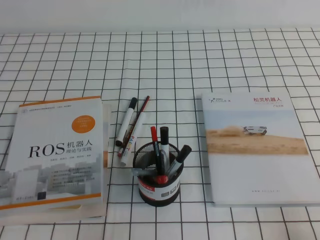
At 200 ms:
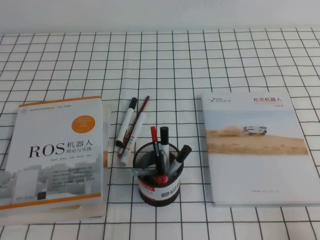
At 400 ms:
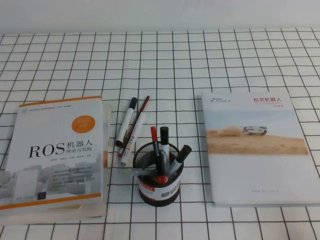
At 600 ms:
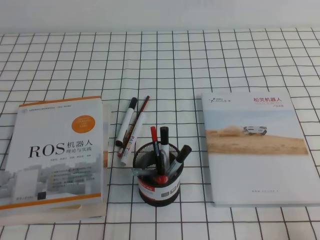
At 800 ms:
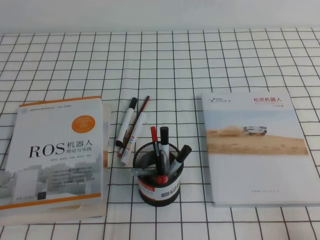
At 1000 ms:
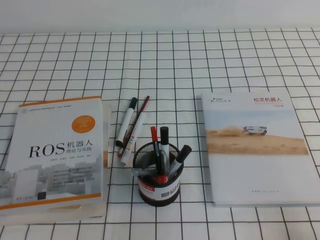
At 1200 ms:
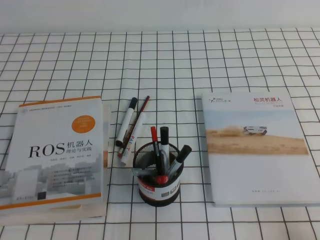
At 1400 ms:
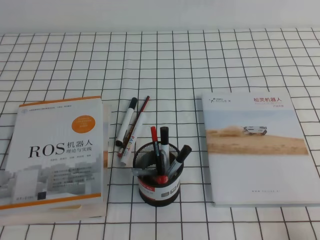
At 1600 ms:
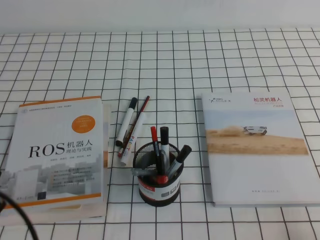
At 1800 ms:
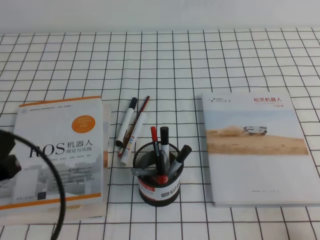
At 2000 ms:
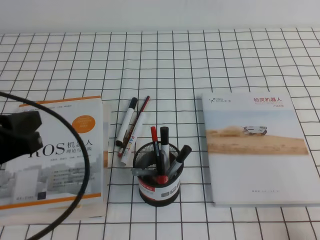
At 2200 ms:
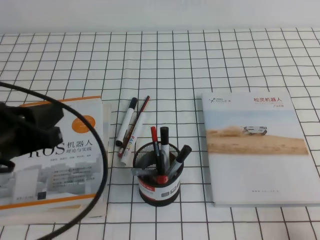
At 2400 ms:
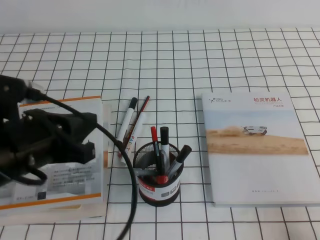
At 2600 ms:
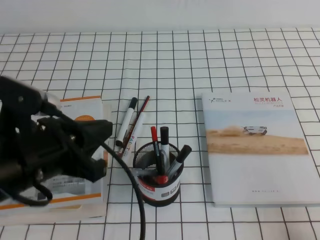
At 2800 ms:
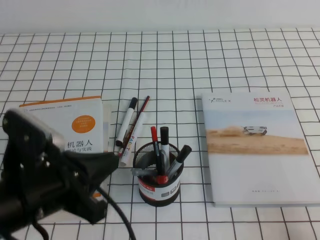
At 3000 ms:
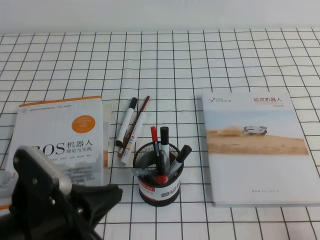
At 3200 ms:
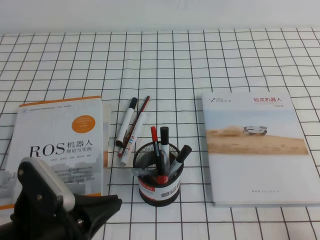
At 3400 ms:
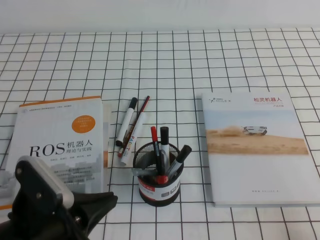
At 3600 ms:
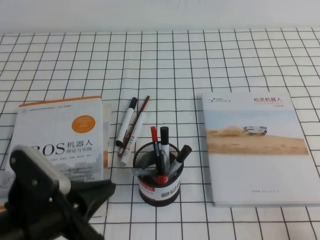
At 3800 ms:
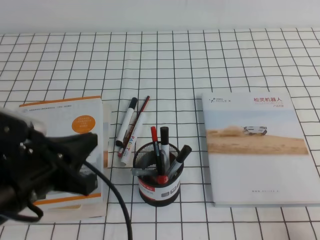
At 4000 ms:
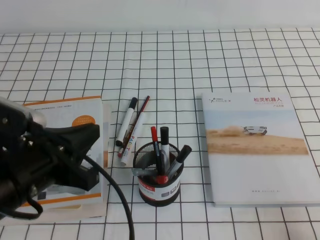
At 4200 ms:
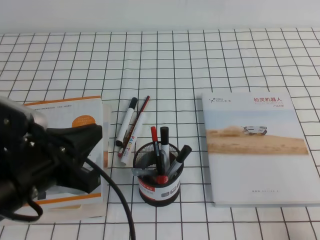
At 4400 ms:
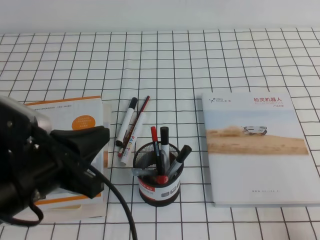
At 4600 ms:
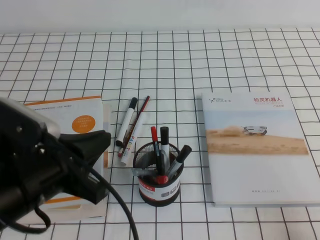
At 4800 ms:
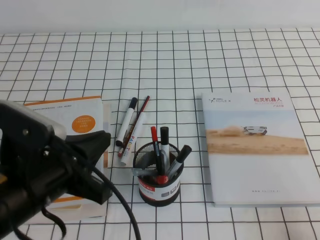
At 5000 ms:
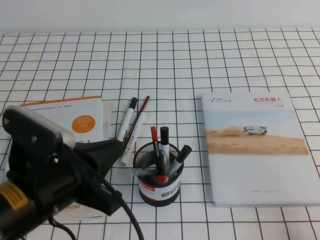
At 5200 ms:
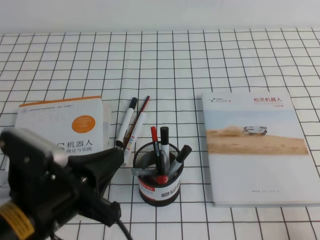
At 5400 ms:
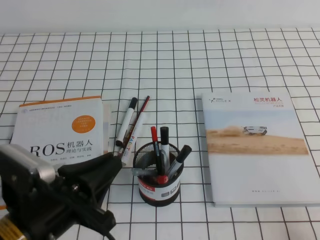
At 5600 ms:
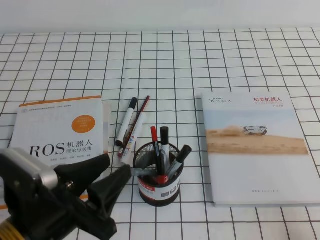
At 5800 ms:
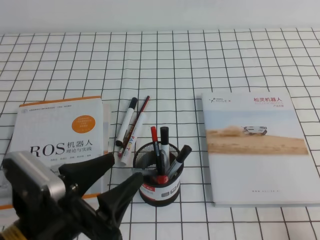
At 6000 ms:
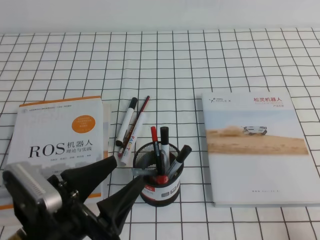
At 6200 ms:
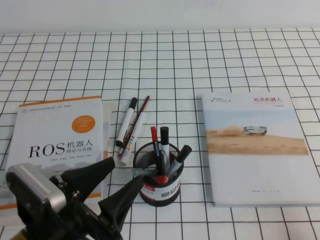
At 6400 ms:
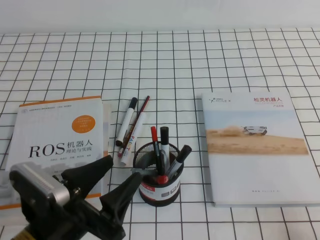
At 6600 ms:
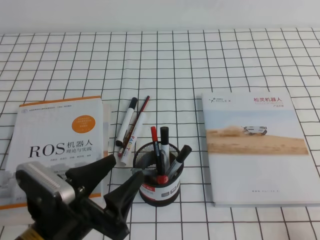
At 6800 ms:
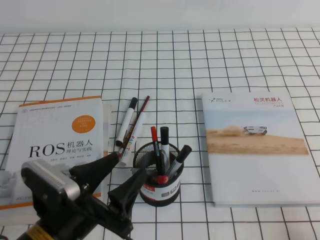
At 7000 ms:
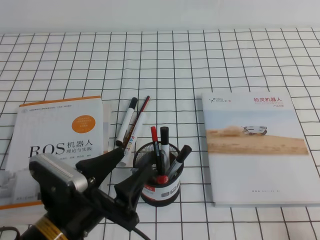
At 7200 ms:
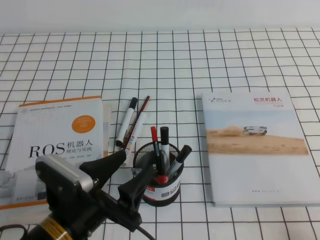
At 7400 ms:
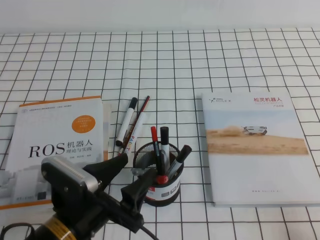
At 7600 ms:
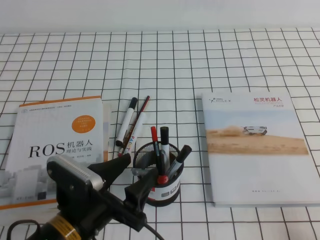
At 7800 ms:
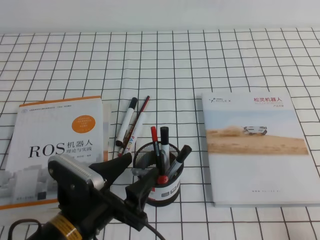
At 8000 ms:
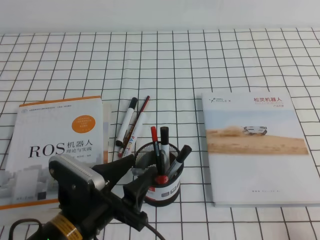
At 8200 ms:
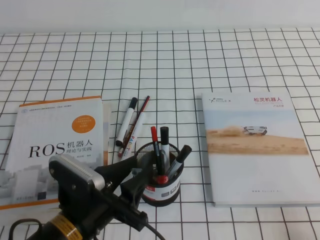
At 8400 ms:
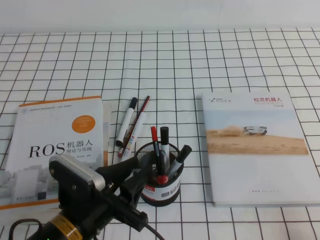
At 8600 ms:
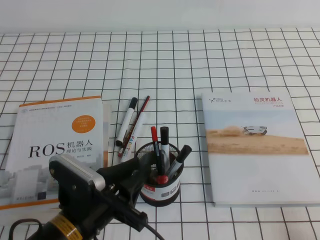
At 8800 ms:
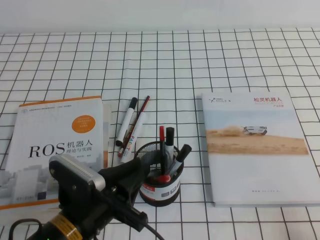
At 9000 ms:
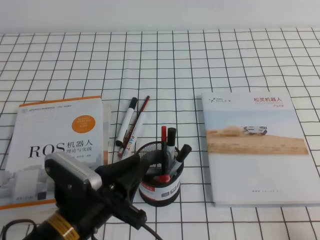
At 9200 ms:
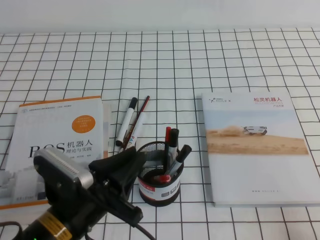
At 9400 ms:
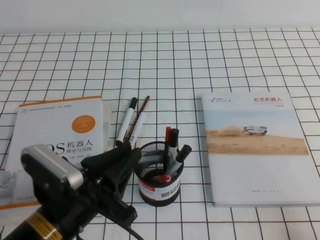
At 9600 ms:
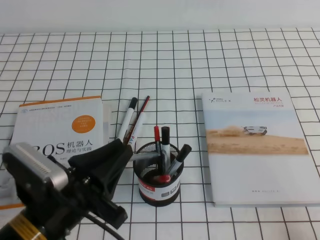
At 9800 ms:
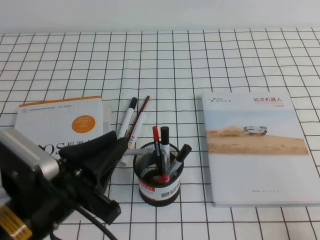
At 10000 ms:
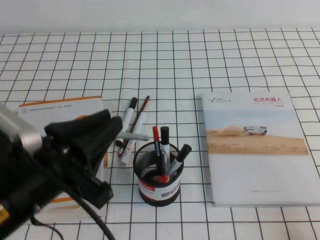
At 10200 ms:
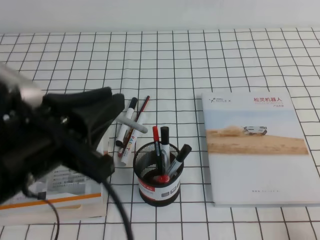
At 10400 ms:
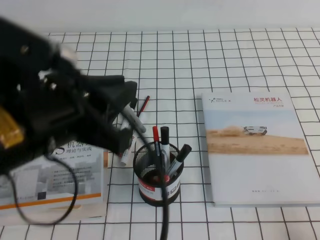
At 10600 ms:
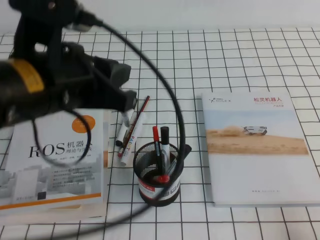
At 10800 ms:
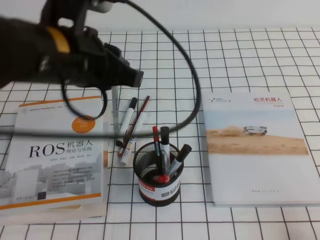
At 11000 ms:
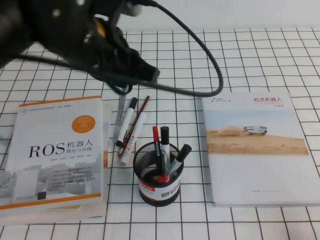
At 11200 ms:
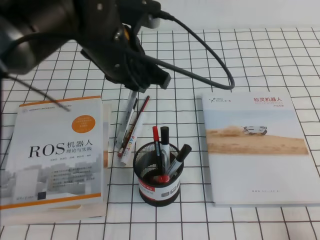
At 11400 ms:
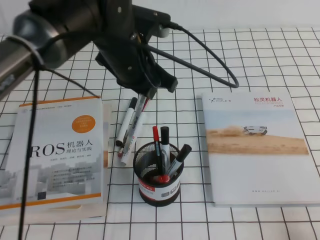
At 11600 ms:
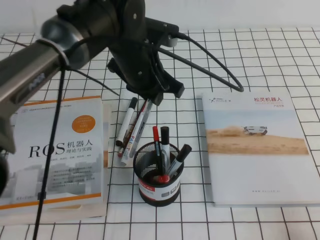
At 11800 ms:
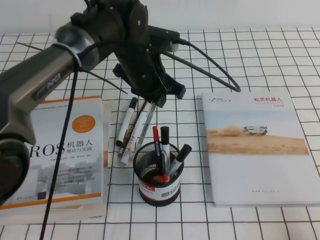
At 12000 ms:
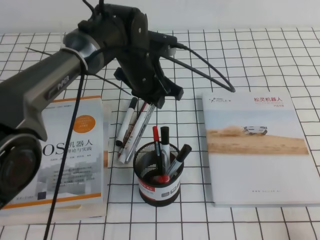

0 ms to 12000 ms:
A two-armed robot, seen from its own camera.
0 ms to 1600 ms: The left gripper heads upward, covering approximately 10 cm.
1600 ms to 3000 ms: The left gripper travels to the right by about 10 cm.
3000 ms to 4400 ms: The grippers move only a little.
4400 ms to 6000 ms: The left gripper heads downward, covering approximately 5 cm, and opens.
6000 ms to 7600 ms: The left gripper moves roughly 5 cm.
7600 ms to 9000 ms: The left gripper closes its fingers.
9000 ms to 10400 ms: The left gripper shifts about 20 cm upward.
10400 ms to 12000 ms: The left gripper travels forward, downward and to the right by some 30 cm.

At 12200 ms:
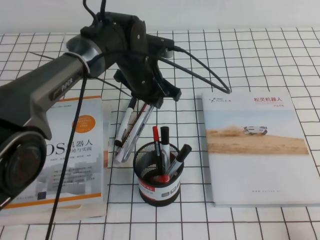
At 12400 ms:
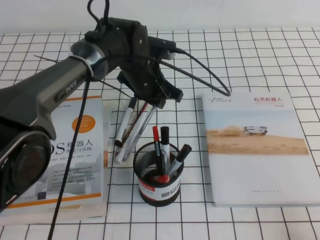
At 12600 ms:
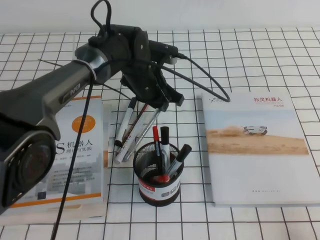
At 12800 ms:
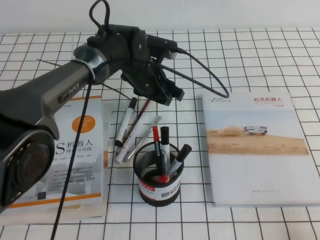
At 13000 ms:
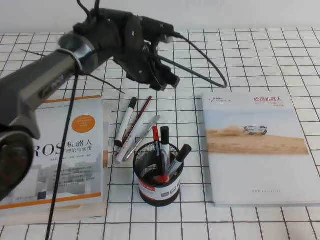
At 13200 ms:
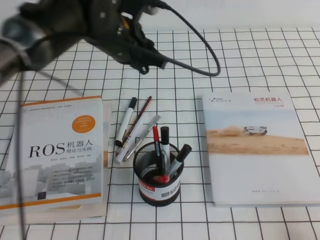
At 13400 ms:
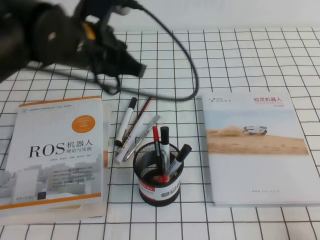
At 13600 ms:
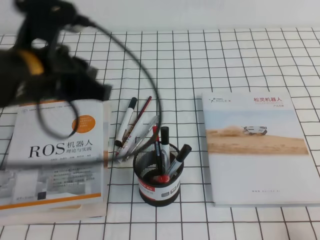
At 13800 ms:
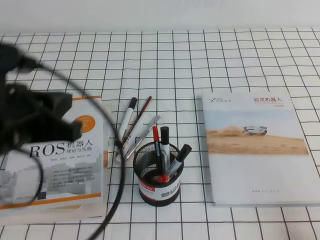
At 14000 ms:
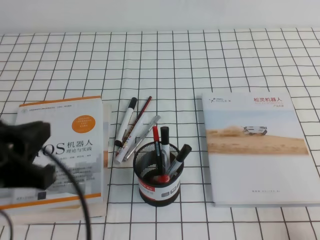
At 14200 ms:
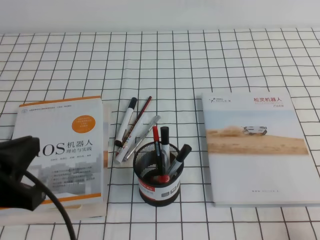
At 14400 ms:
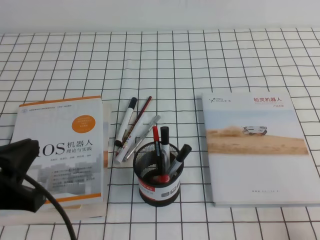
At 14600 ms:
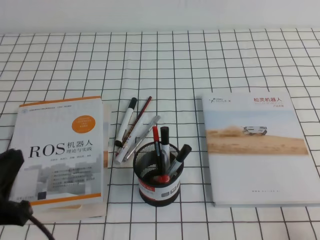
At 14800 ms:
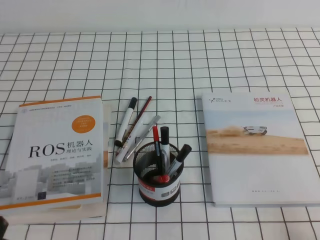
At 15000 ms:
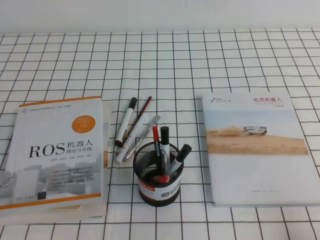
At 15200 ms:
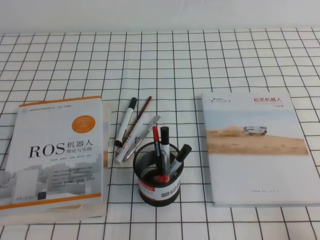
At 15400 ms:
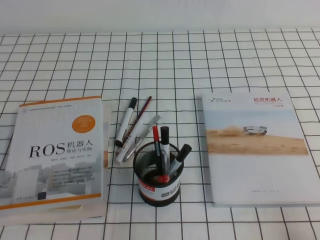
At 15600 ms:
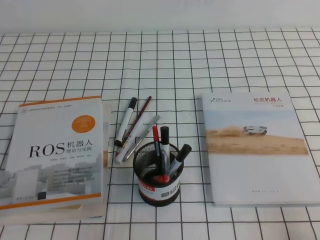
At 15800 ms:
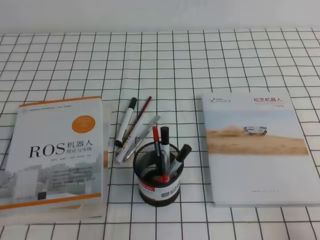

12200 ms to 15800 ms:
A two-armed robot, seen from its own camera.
Step, 12200 ms to 15800 ms: Pick up the pen from the pen holder.
12200 ms to 14000 ms: The left gripper goes some 30 cm backward and to the left, and opens and closes again.
14000 ms to 15800 ms: The left gripper is displaced downward, backward and to the left by about 20 cm.
